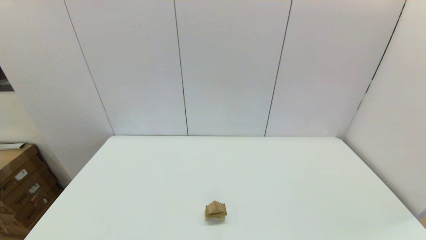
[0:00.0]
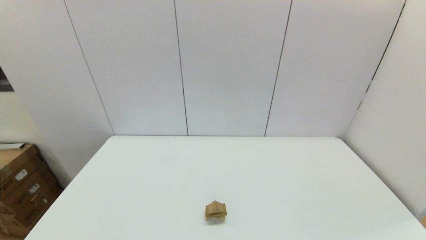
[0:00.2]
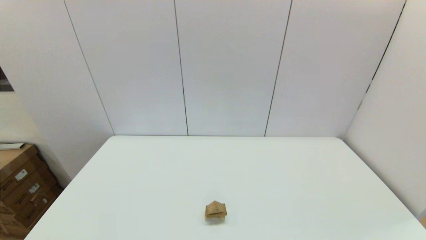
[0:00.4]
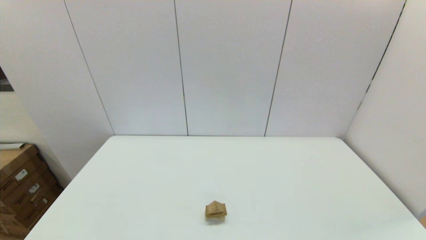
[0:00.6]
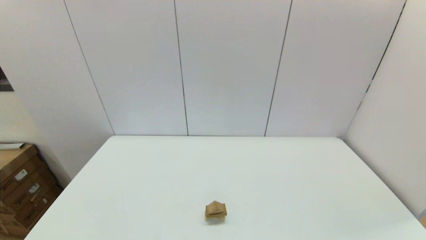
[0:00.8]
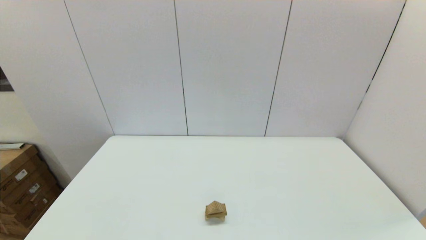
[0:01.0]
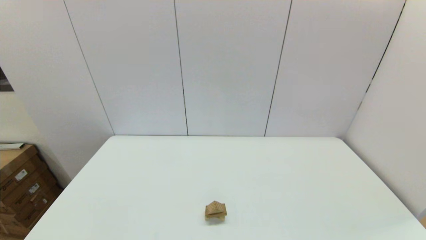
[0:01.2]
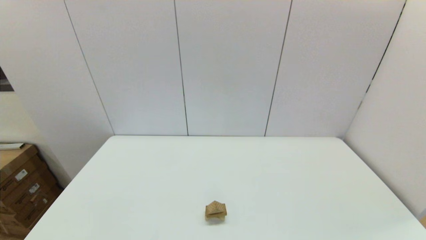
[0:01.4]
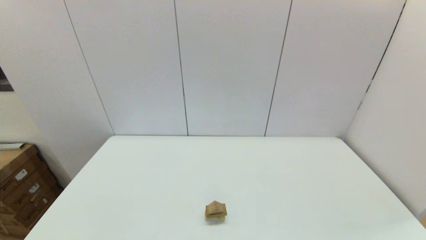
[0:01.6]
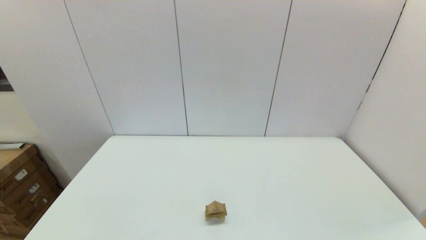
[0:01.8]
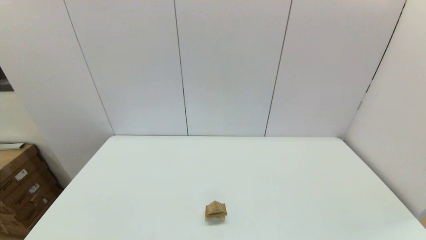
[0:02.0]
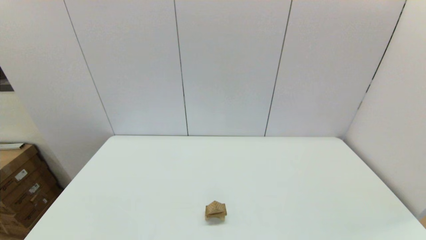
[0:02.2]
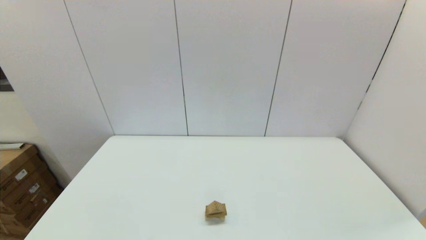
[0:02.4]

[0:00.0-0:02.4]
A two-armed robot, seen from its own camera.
Task of the whole recording: place the arched building blocks in the center of the table, set up the rectangular building blocks, and then set up the triangular building blocks.
0:01.2 to 0:02.4: Both grippers stay about where they are.
